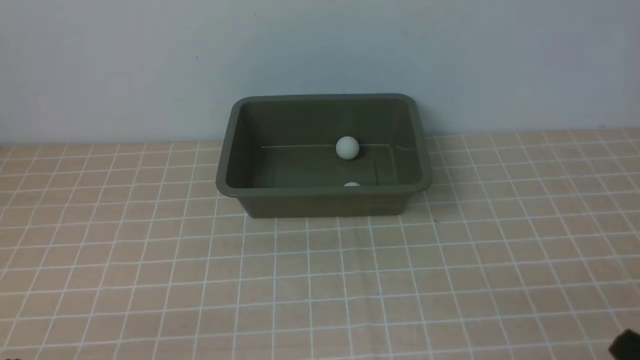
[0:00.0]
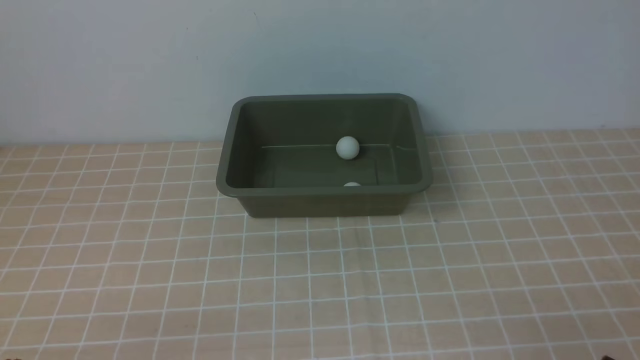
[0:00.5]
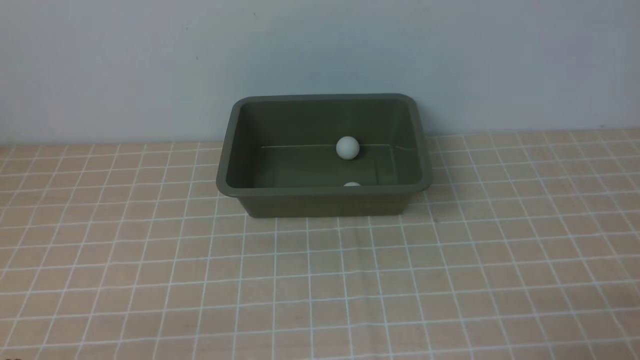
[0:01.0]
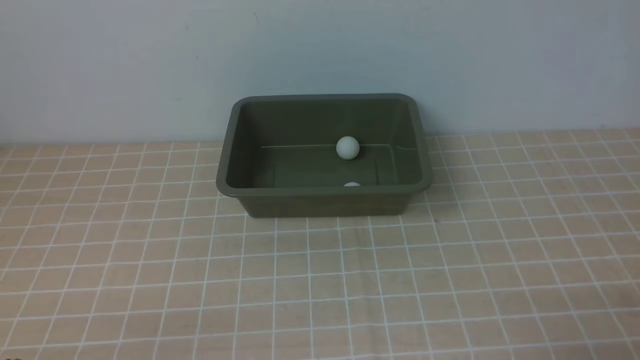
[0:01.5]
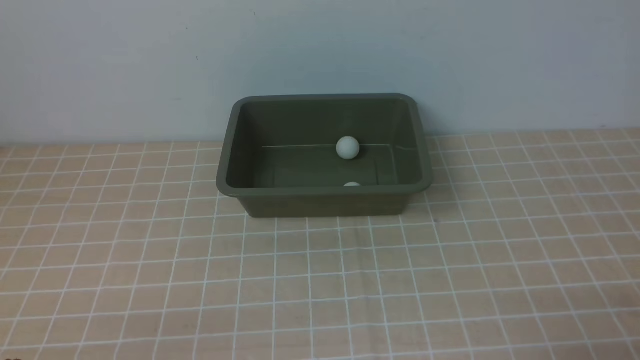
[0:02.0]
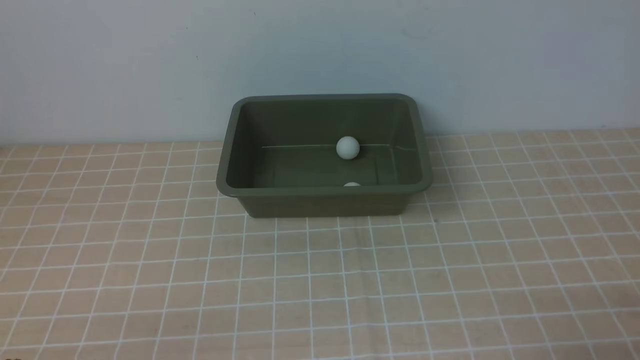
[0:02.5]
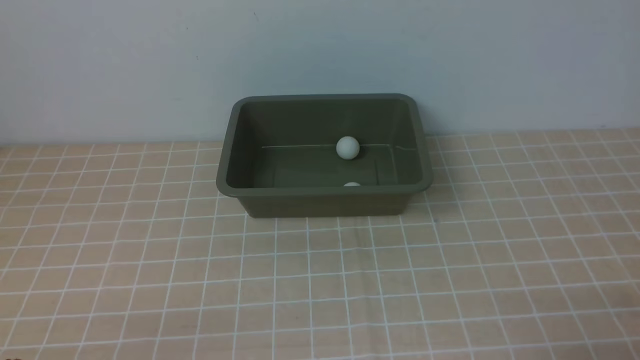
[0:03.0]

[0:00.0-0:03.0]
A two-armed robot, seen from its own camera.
0:01.5 to 0:03.0: The two grippers keep their place.

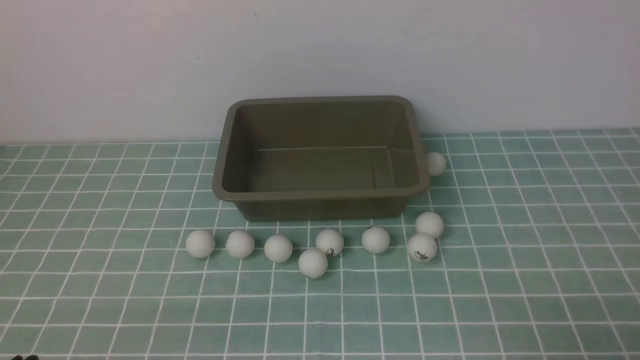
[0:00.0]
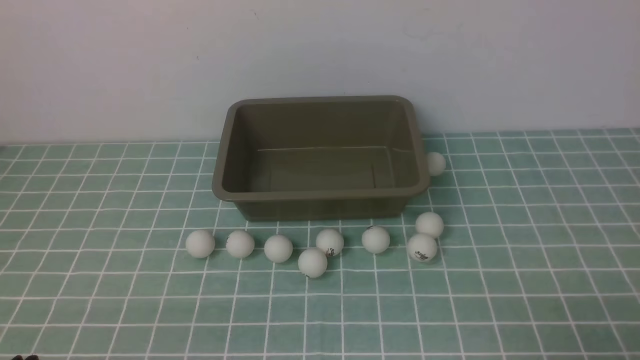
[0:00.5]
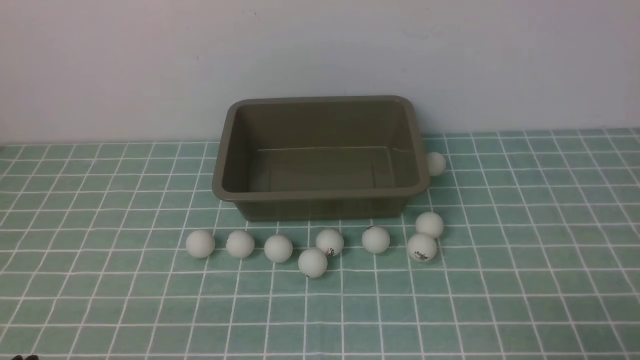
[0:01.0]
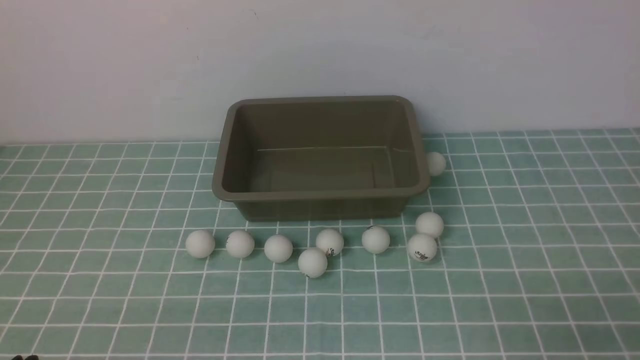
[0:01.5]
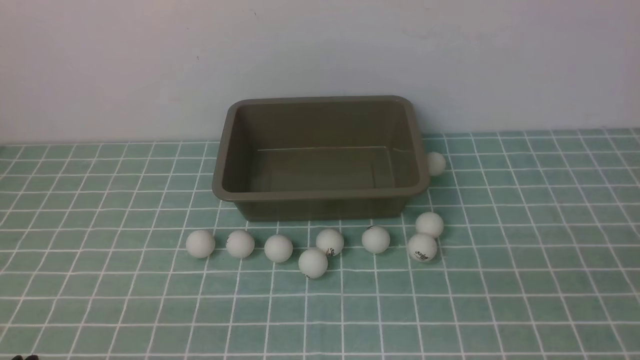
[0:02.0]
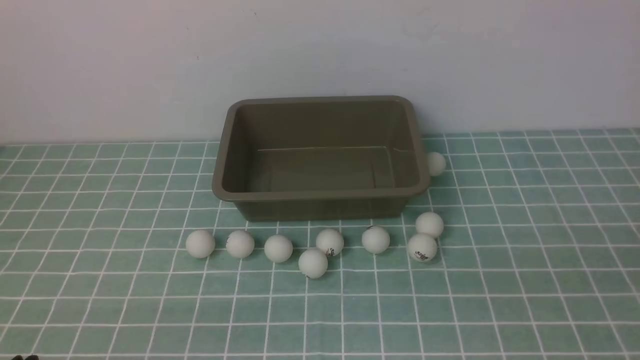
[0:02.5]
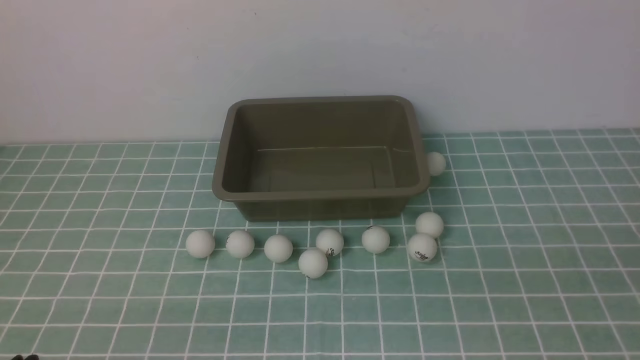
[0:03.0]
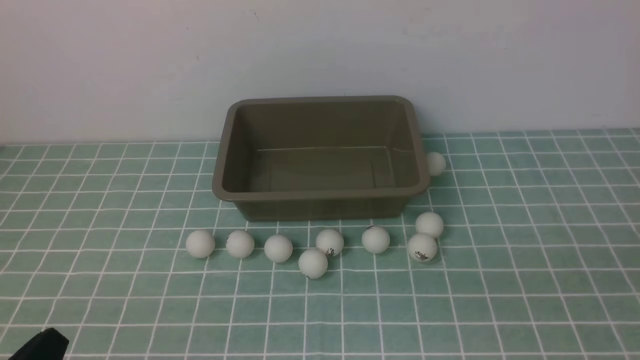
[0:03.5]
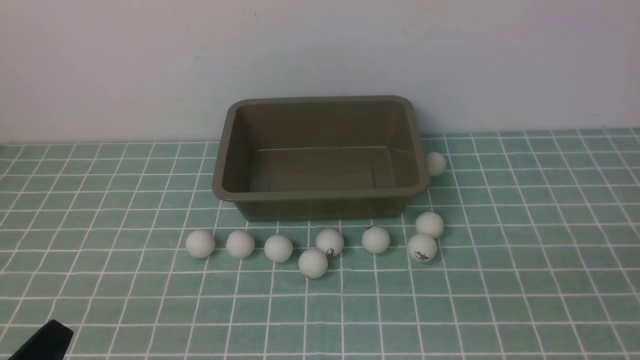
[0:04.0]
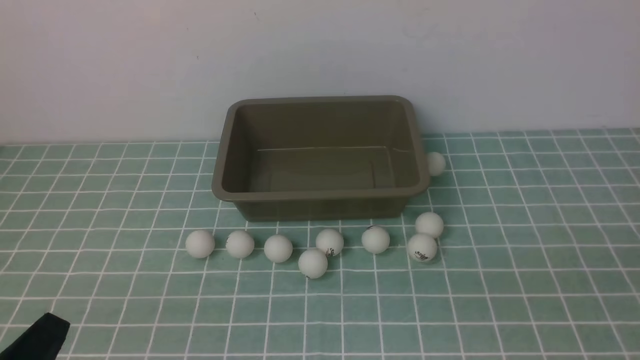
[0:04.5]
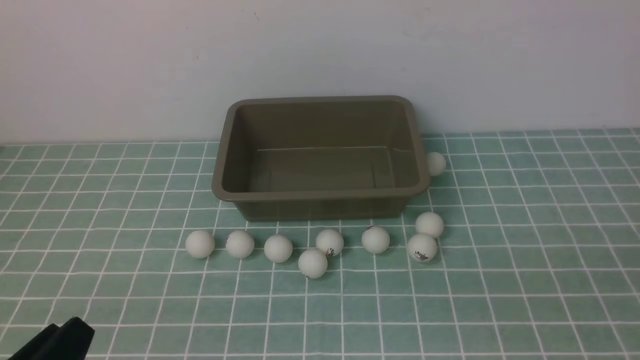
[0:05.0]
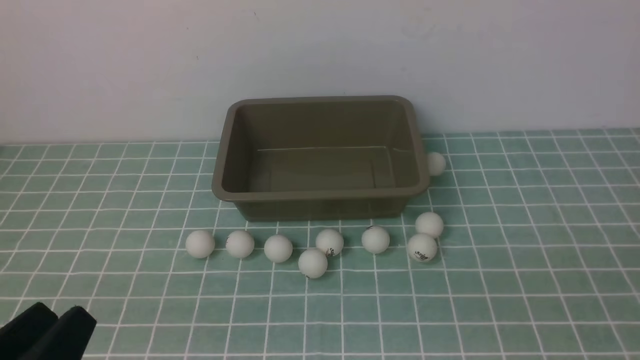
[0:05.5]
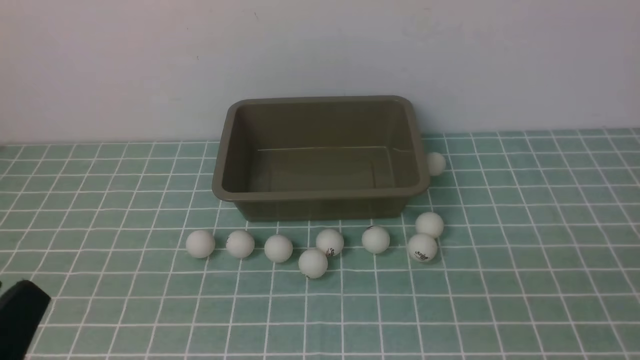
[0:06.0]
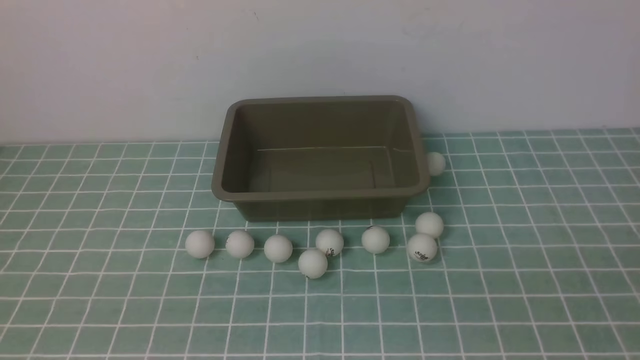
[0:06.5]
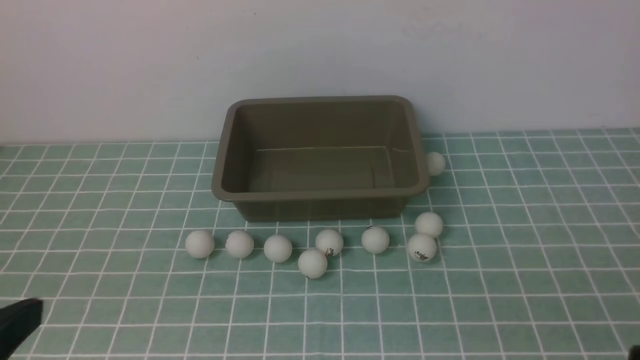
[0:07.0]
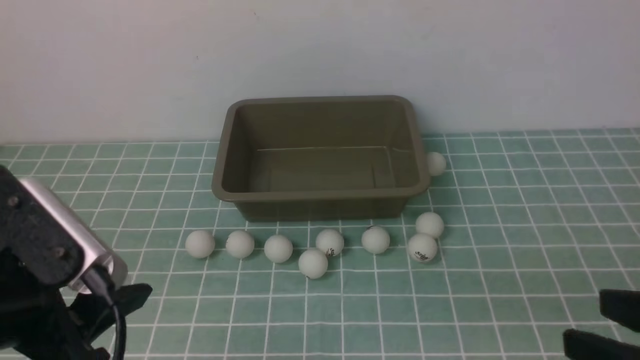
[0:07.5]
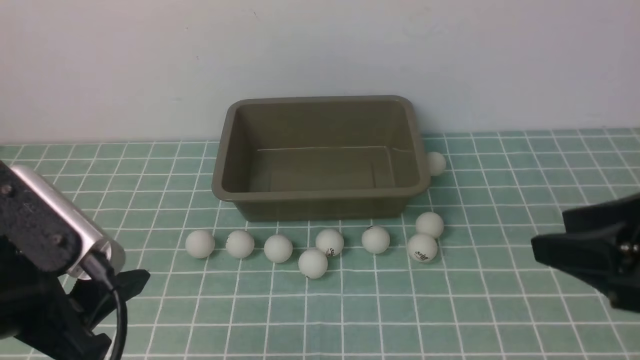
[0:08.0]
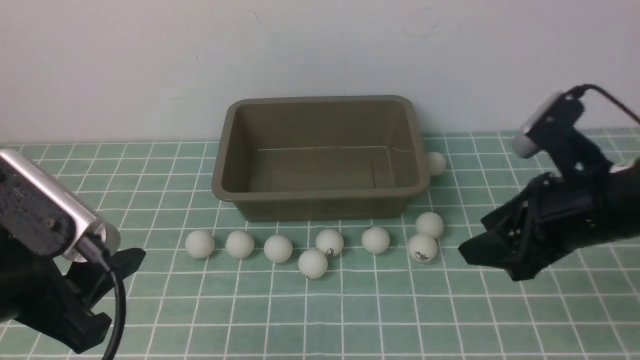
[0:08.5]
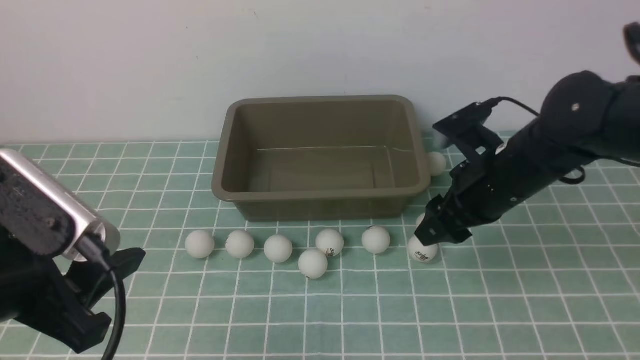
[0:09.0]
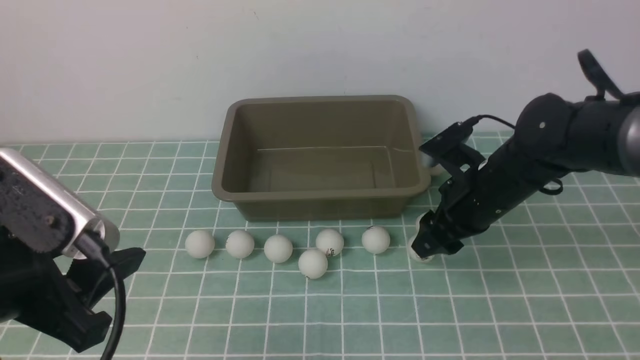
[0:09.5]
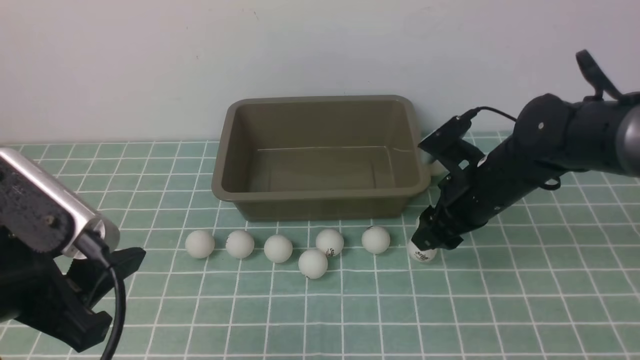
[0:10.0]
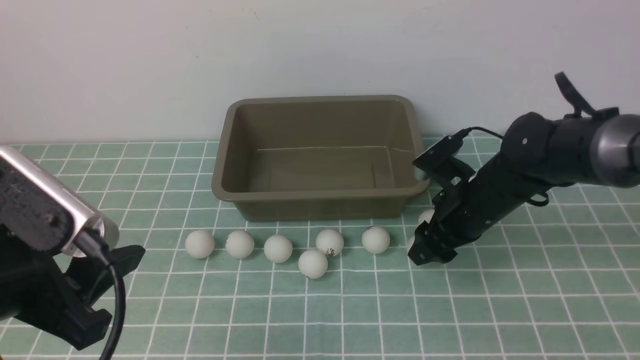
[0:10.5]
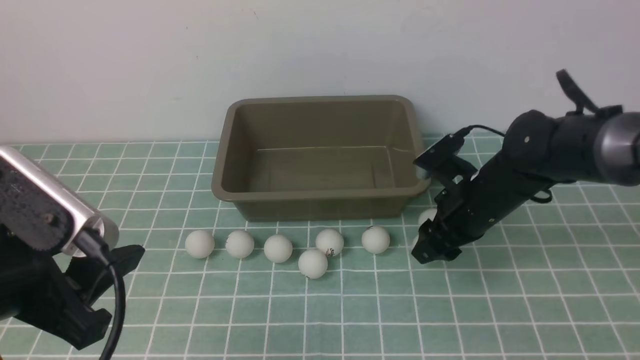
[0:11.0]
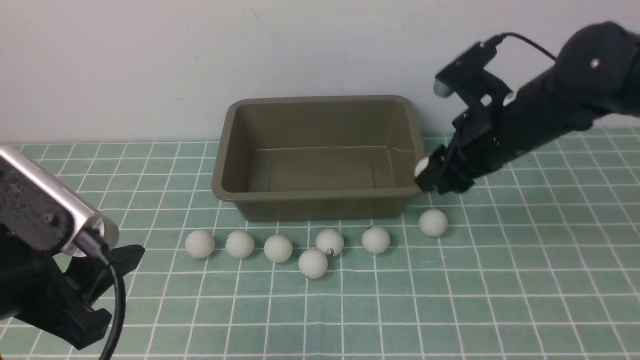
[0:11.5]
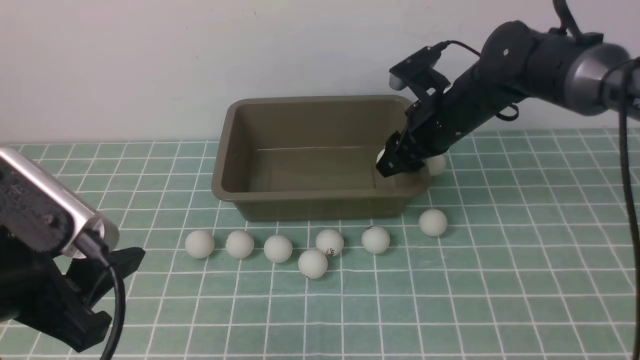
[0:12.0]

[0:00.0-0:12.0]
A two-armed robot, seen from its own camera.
Step, 0:00.0 to 0:11.0: use the right arm to clamp the table tennis ball closest to it.
0:04.0 to 0:06.0: The left gripper goes approximately 10 cm upward, and opens up.
0:06.0 to 0:08.0: The right gripper moves forward, approximately 20 cm. Meanwhile the left gripper goes about 10 cm forward.
0:08.0 to 0:10.0: The right gripper heads forward, downward and to the left, covering some 20 cm.
0:10.0 to 0:12.0: The right gripper moves forward and upward, about 10 cm.

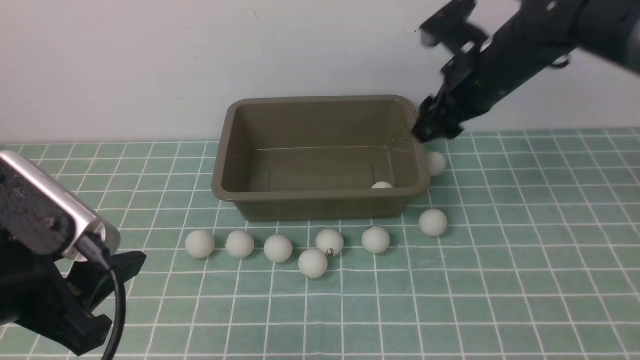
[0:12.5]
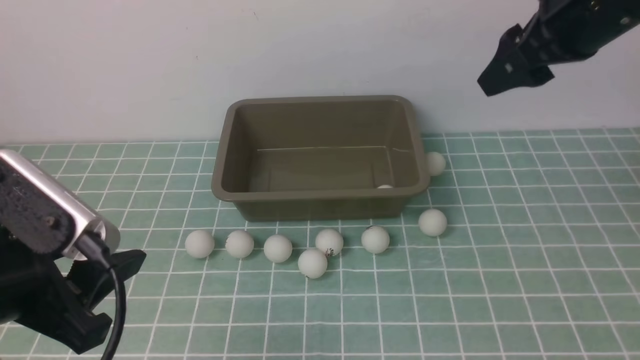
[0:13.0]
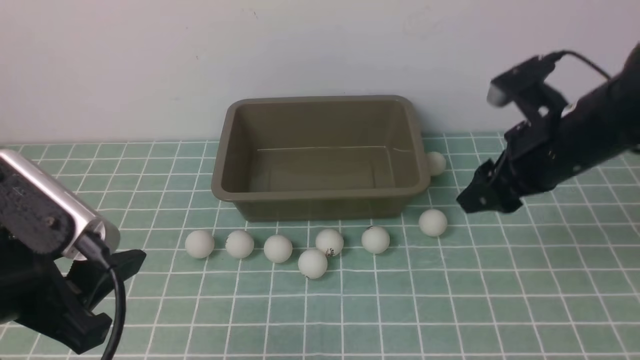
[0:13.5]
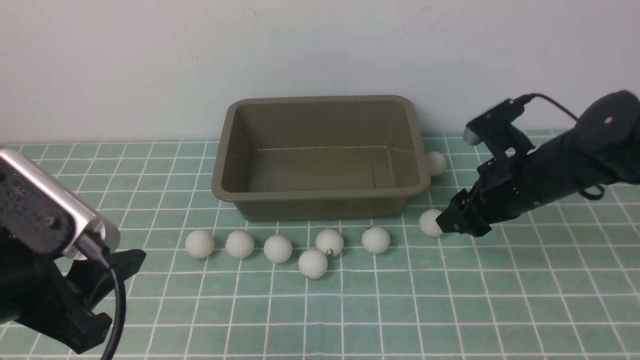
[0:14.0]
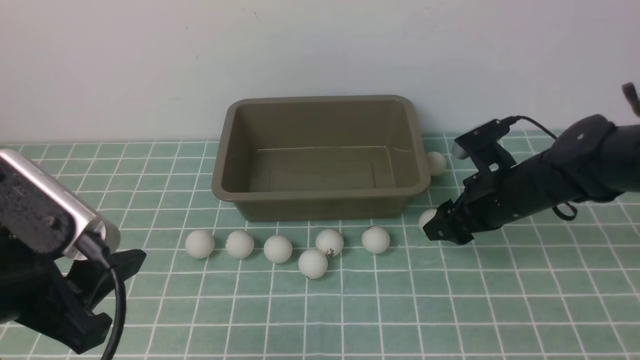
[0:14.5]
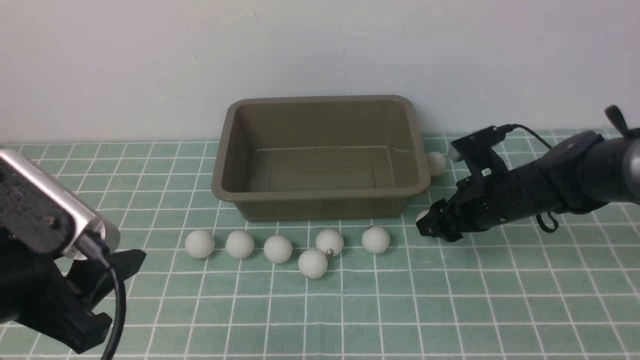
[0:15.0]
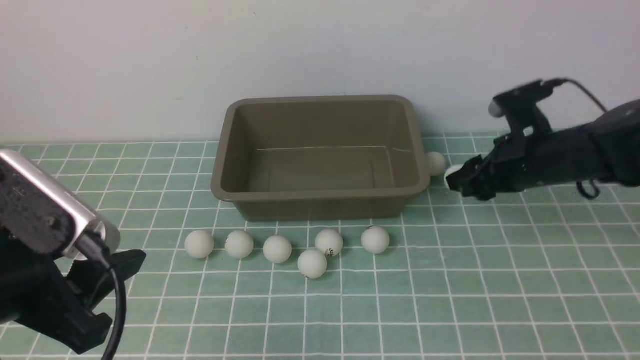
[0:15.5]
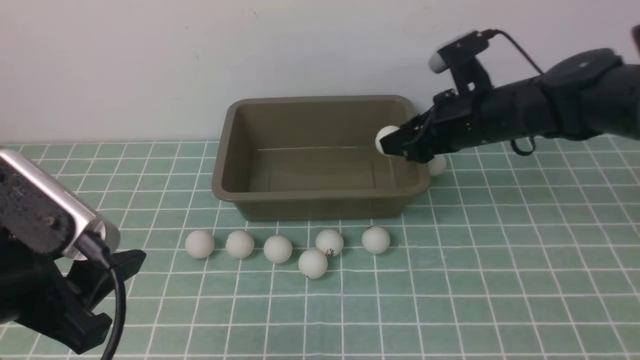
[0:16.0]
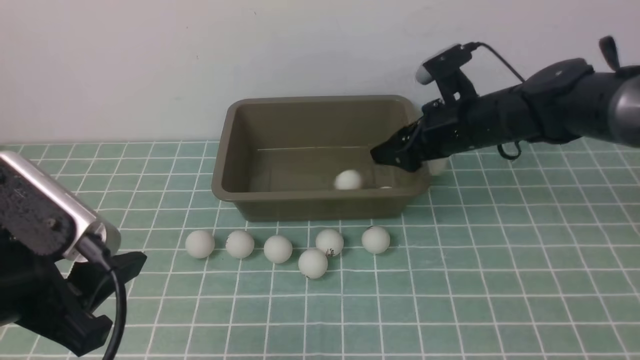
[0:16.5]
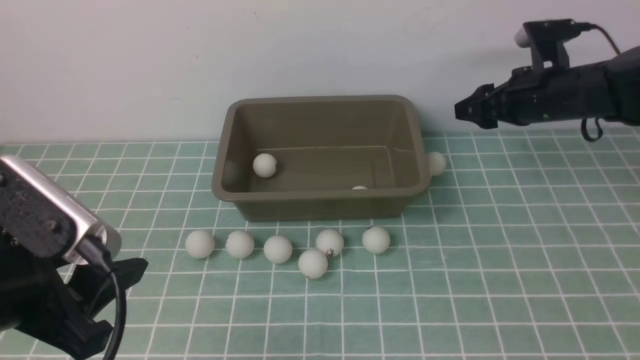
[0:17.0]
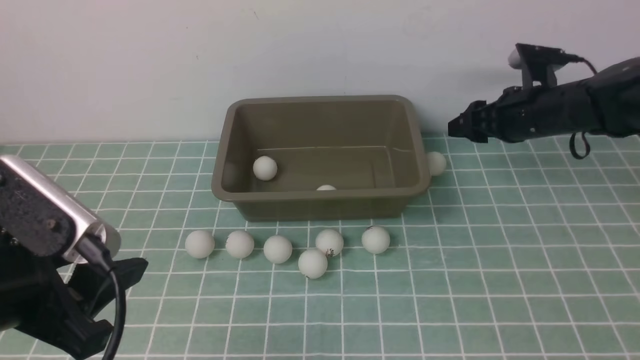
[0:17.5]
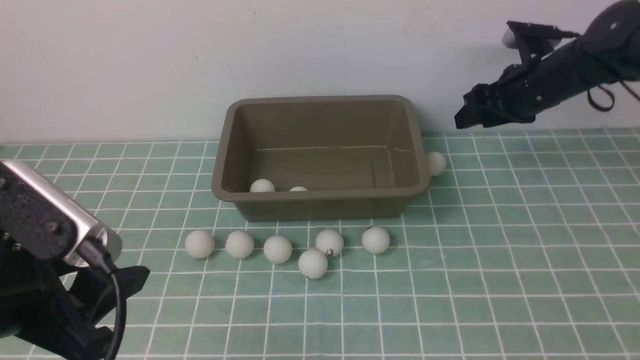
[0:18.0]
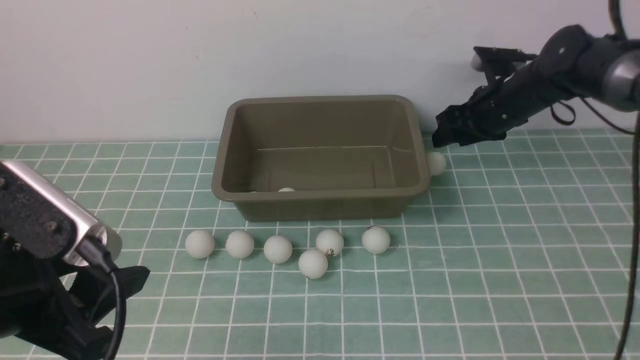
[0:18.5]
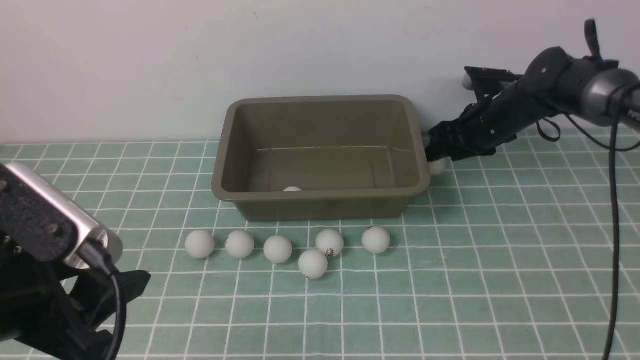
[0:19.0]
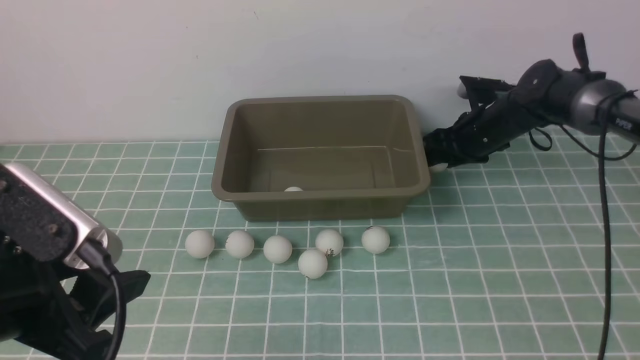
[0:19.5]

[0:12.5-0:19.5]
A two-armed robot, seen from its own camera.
Step, 0:12.5 to 0:15.5: use the right arm to clamp the table tennis ball closest to it.
Step, 0:16.0 to 0:16.5: use the right arm to put the table tennis ball into the box.
0:12.5 to 0:14.5: The right gripper moves downward and backward, roughly 15 cm.
0:14.5 to 0:16.0: The right gripper shifts about 5 cm upward, and closes up.
0:16.0 to 0:17.5: The right gripper travels to the right and forward by roughly 10 cm.
0:17.5 to 0:19.5: The right gripper goes approximately 10 cm downward and forward.
